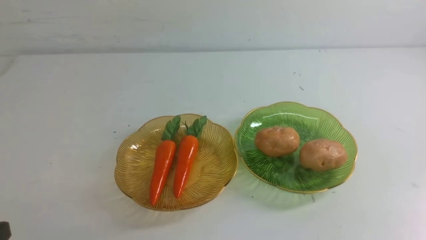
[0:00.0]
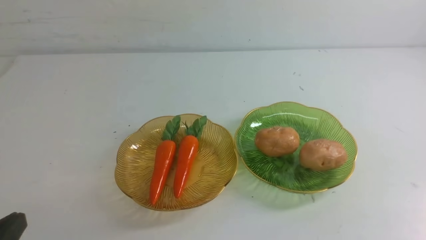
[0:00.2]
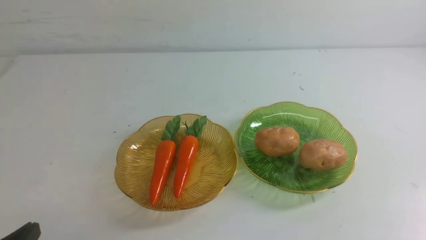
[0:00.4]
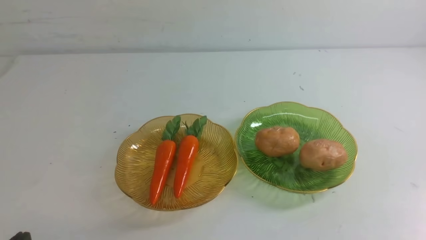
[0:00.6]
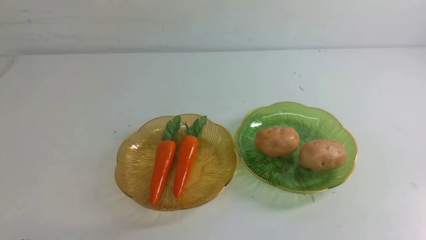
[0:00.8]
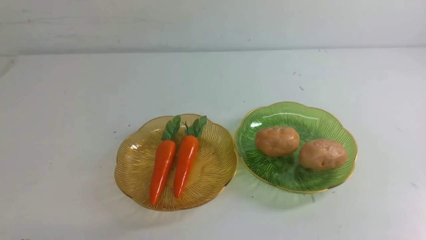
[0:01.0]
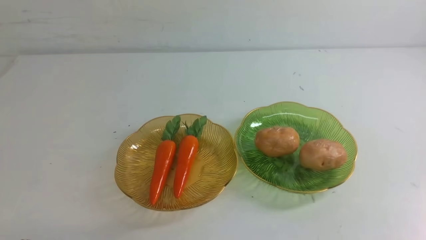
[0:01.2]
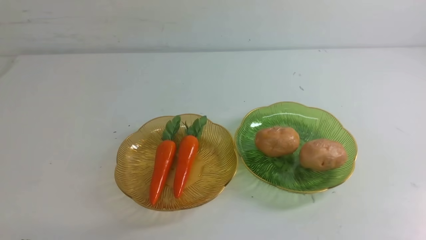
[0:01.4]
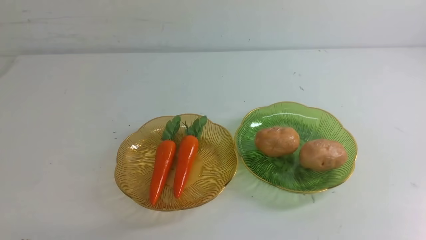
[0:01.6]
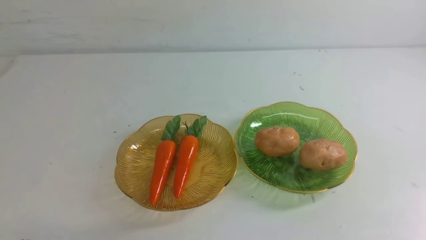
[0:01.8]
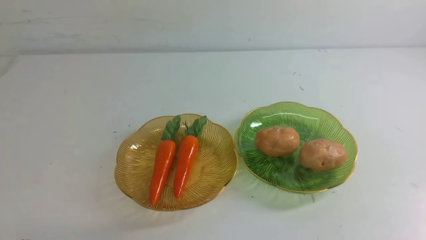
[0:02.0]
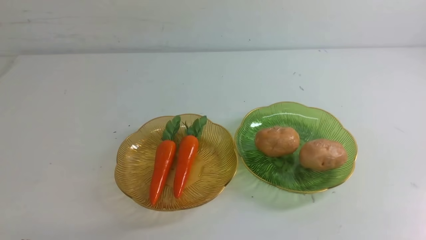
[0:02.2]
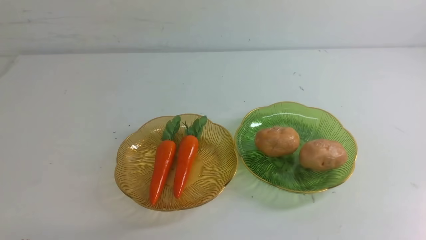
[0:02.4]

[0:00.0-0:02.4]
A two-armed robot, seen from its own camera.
0:01.2 to 0:02.4: Both grippers stay put.

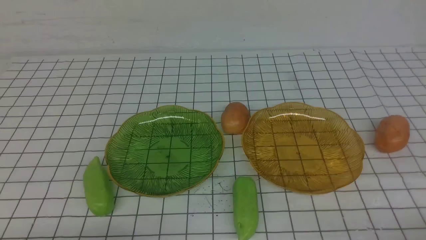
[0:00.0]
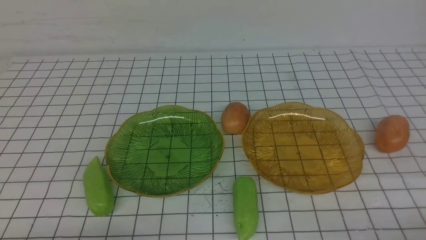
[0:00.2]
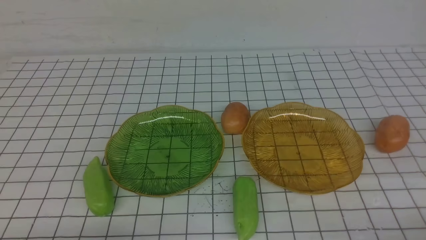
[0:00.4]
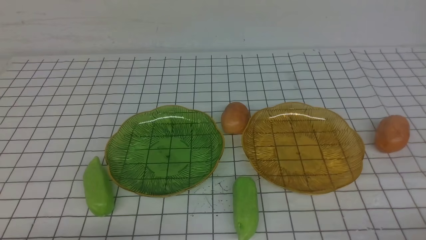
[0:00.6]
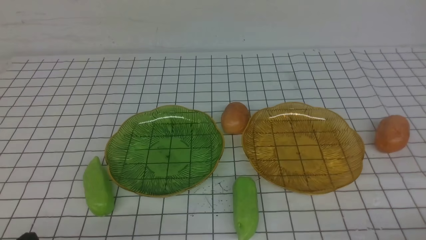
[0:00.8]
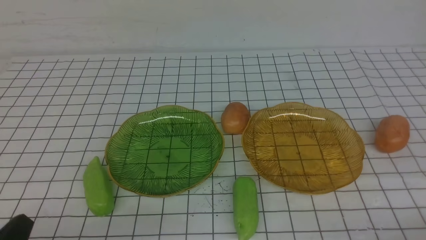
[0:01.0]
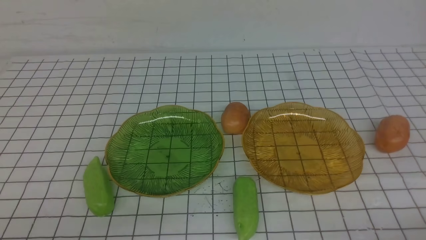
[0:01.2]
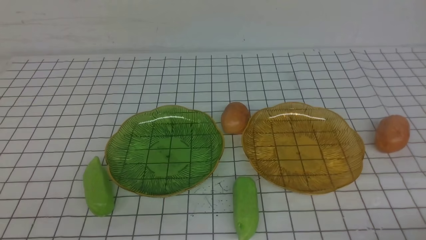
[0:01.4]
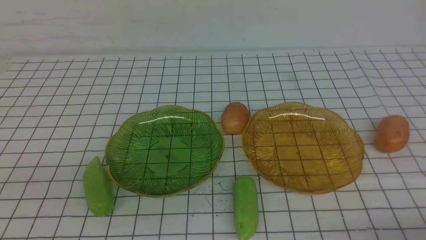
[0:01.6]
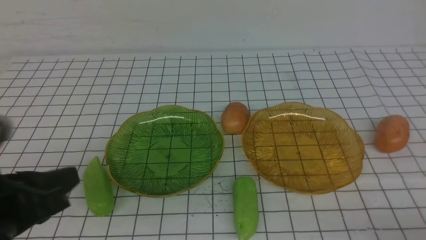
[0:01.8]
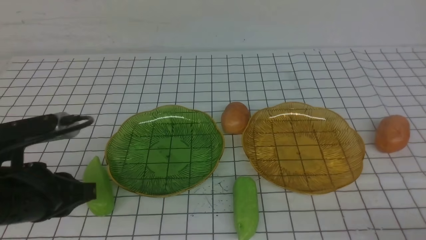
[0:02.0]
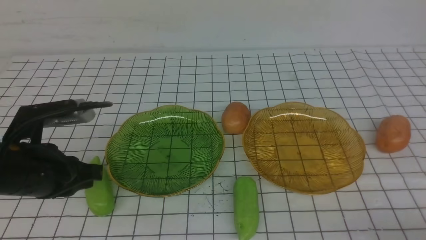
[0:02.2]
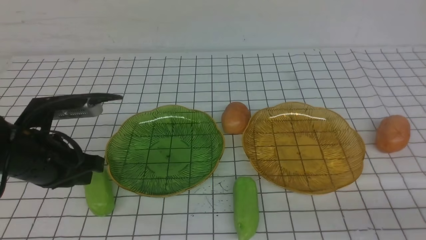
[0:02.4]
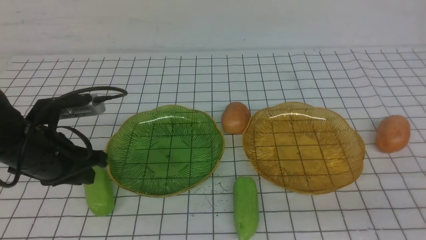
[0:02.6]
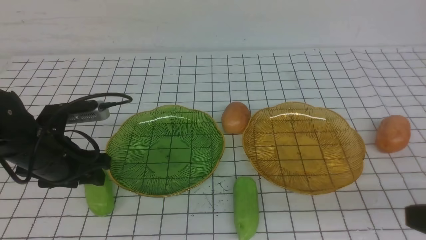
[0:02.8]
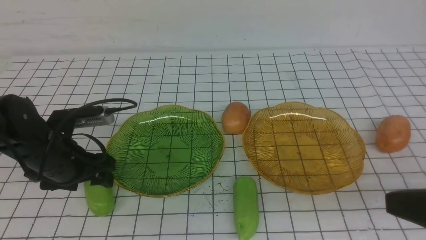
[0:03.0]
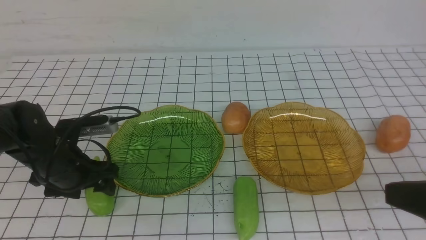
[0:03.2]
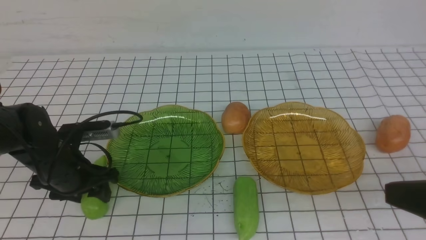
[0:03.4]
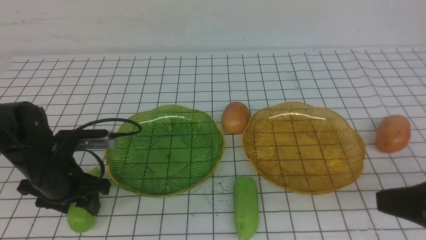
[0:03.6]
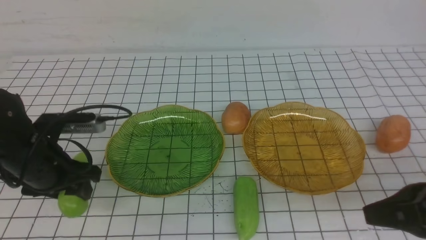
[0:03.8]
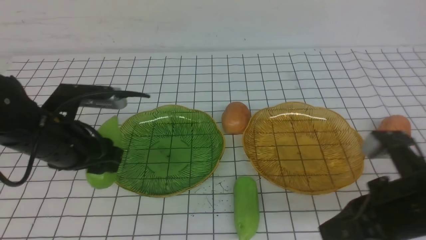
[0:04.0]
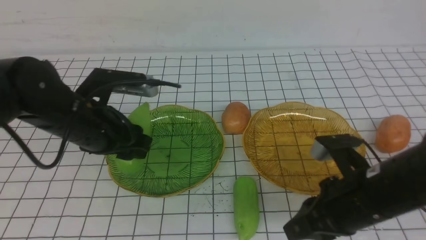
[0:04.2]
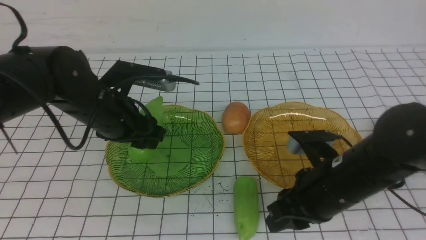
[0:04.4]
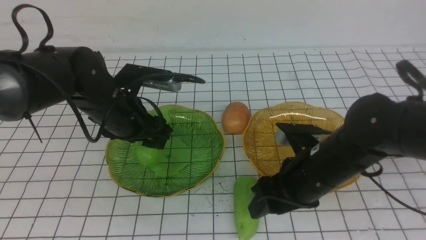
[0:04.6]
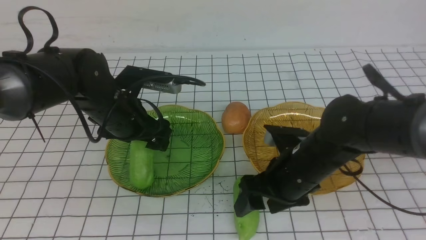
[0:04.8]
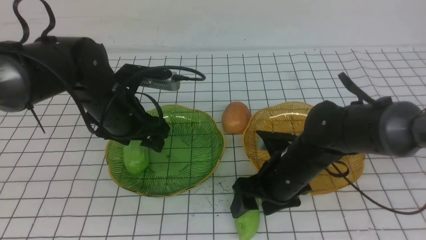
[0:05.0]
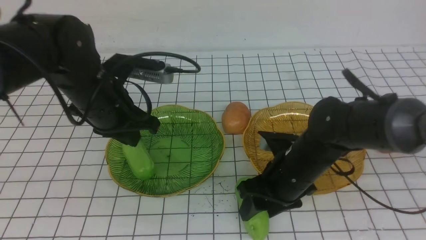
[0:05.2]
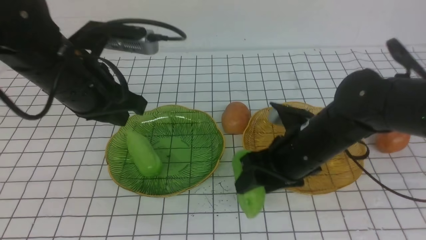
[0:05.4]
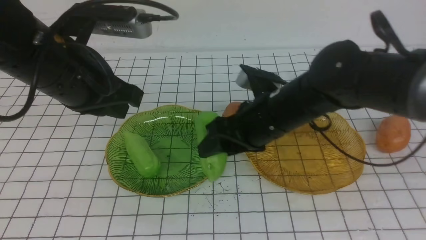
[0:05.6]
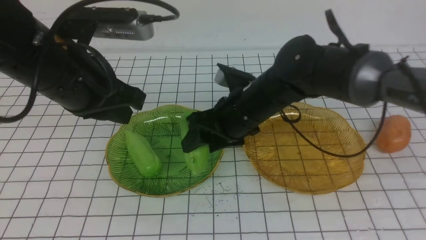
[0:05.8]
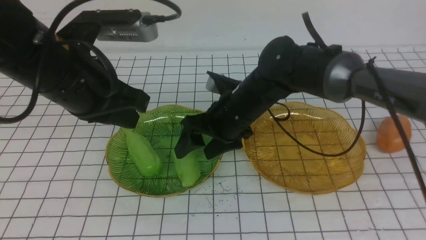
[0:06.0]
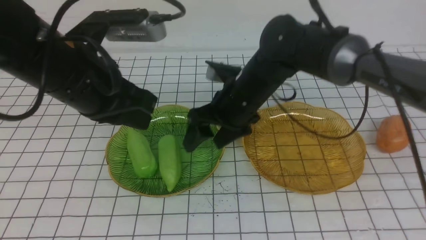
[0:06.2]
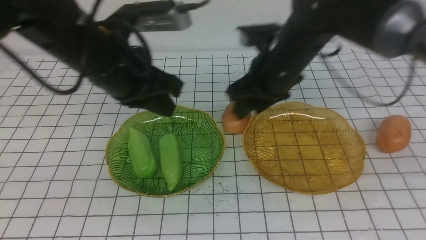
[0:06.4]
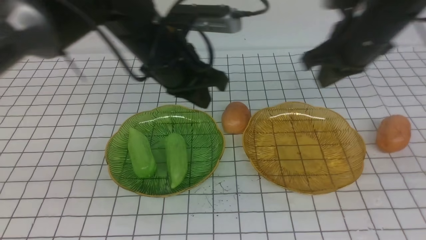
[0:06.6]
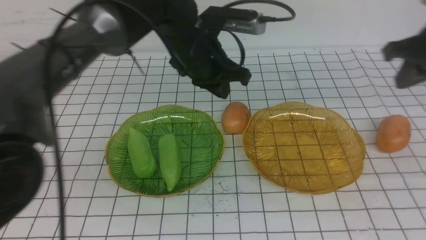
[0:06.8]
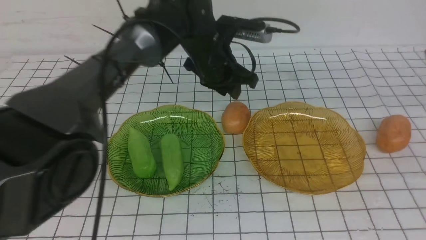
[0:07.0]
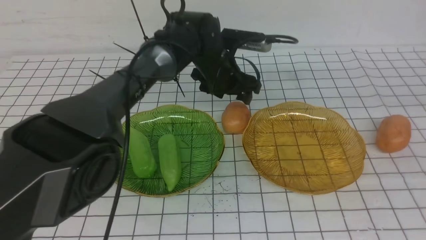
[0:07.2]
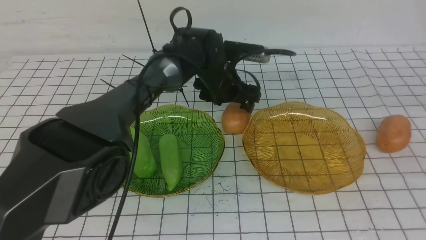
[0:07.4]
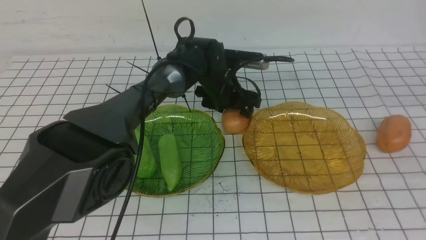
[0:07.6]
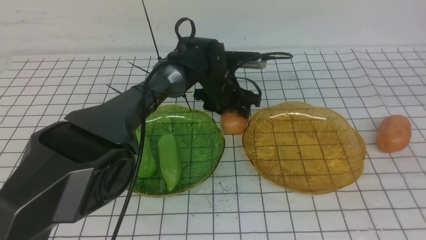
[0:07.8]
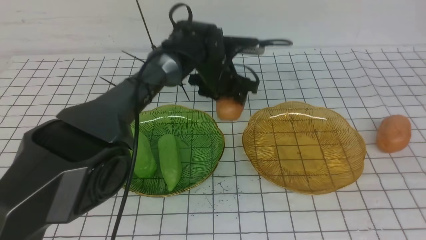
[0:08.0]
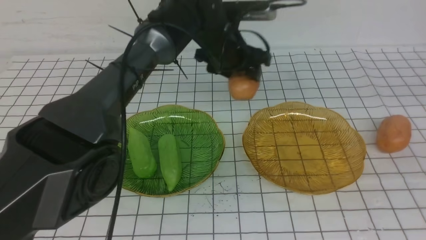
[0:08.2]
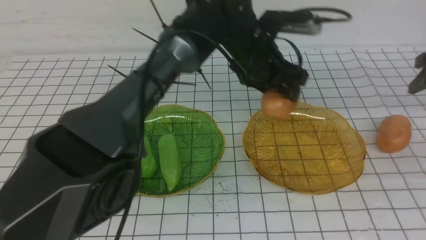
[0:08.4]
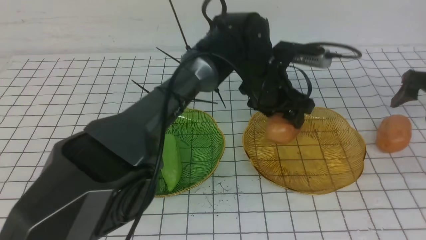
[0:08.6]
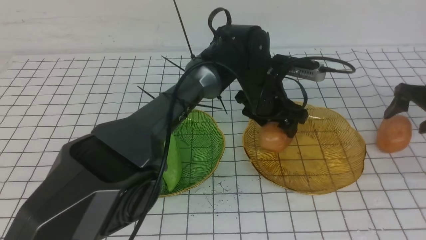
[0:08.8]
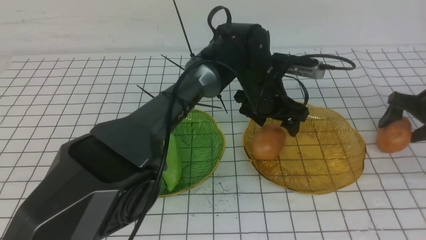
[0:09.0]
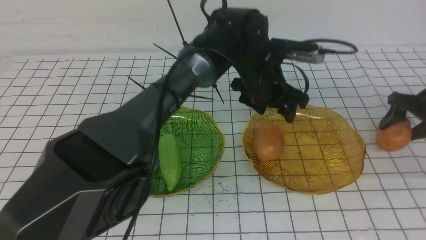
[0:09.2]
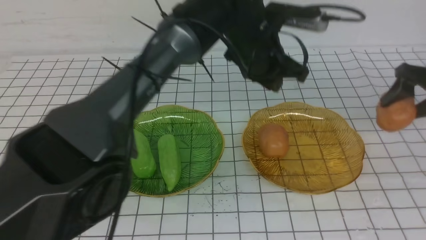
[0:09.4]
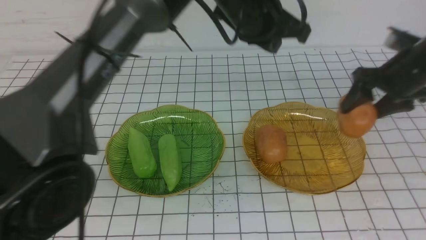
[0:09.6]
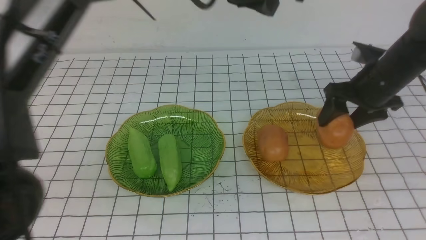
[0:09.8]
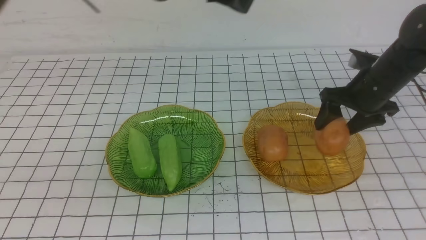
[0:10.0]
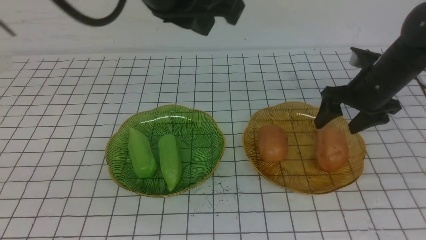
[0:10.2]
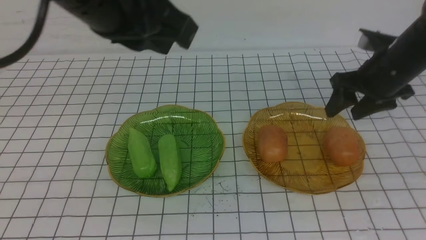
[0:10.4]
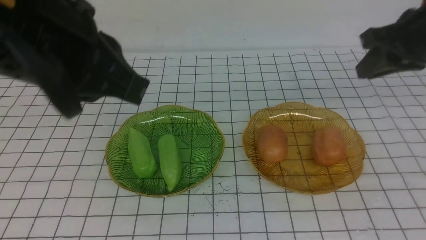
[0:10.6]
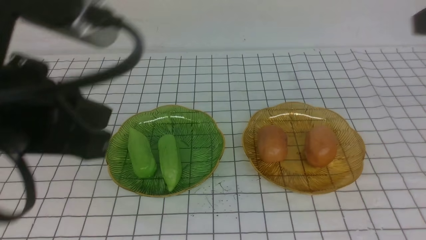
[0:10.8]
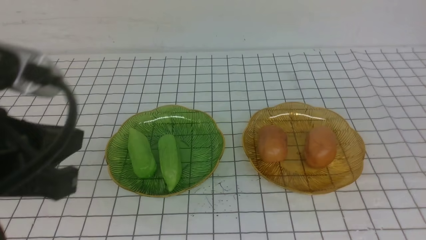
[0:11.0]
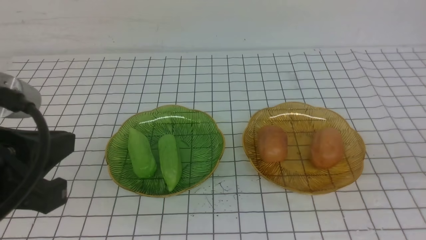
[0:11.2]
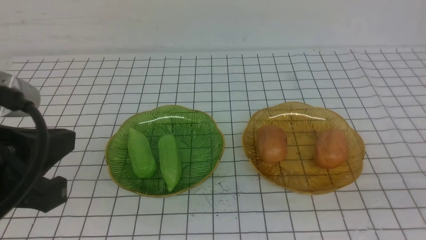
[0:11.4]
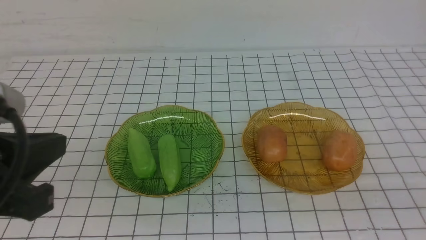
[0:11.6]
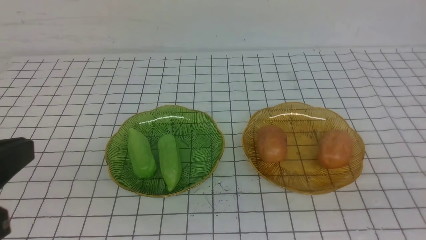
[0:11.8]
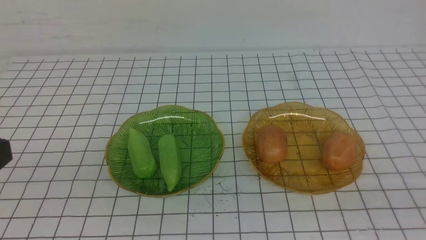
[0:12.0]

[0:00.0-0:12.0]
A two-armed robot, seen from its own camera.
Step, 0:00.0 to 0:05.0: use the left arm to grab a chayote and put it into the left plate.
Step, 0:05.2 to 0:06.0: Grab the chayote with your right arm and put it on the left plate.
Step, 0:06.2 to 0:09.0: Grab a potato with your left arm and put it on the right plate.
Step, 0:09.2 to 0:10.2: Grab a potato with your right arm and put it on the right plate.
0:01.6 to 0:03.0: The left gripper is displaced forward and downward by some 20 cm, and opens its fingers. The right gripper goes some 15 cm upward.
0:03.0 to 0:04.4: The right gripper heads forward, to the left and downward, covering roughly 20 cm, and opens its fingers; the left gripper is displaced to the right and upward by roughly 10 cm.
0:04.4 to 0:06.0: The right gripper goes approximately 15 cm forward and to the left, and opens up. The left gripper moves upward and backward, some 10 cm, and closes its fingers.
0:06.0 to 0:07.6: The right gripper goes some 35 cm to the right, and closes its fingers. The left gripper shifts some 30 cm forward, downward and to the right, and opens up.
0:07.6 to 0:09.0: The left gripper shifts approximately 10 cm to the right and backward. The right gripper travels downward and forward by about 20 cm, and opens its fingers.
0:09.0 to 0:10.4: The right gripper travels upward, to the left and backward by approximately 20 cm, and closes up. The left gripper is displaced upward, backward and to the left by about 35 cm, and closes.
0:10.4 to 0:12.0: The right gripper is displaced backward by roughly 35 cm, and closes its fingers, while the left gripper shifts about 20 cm backward, to the left and downward.

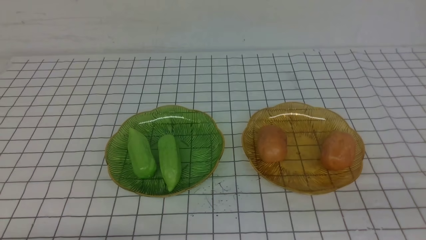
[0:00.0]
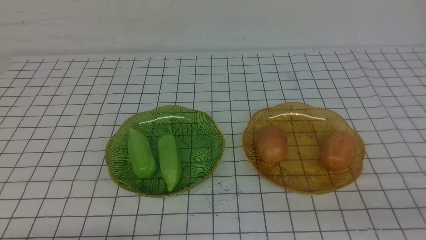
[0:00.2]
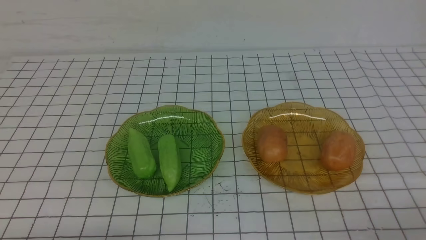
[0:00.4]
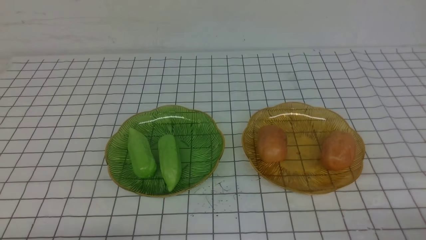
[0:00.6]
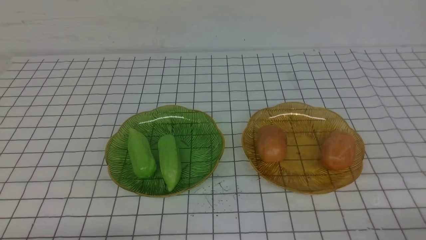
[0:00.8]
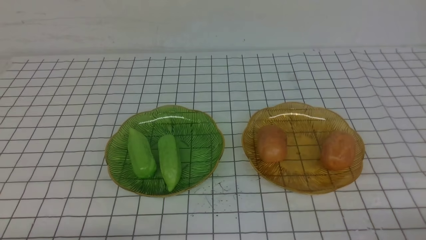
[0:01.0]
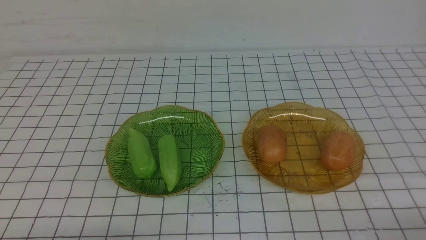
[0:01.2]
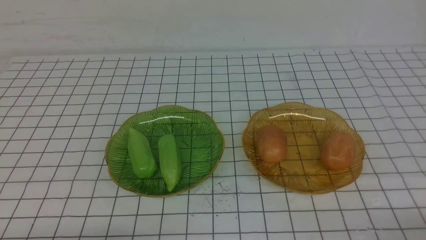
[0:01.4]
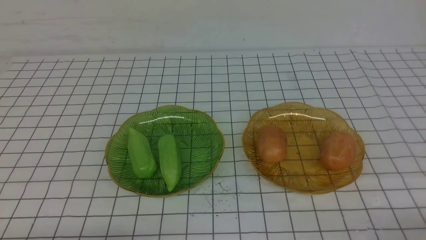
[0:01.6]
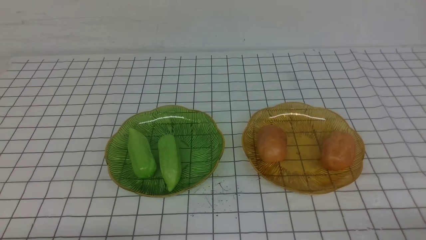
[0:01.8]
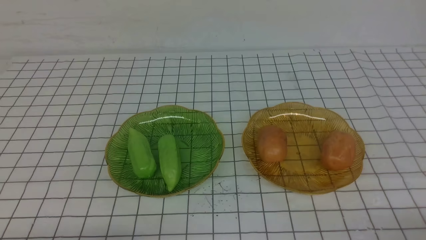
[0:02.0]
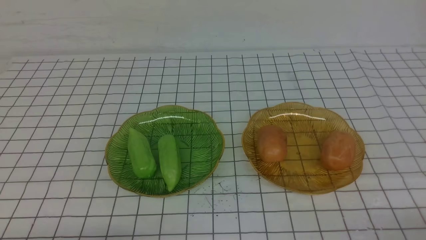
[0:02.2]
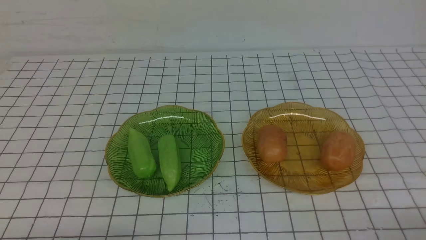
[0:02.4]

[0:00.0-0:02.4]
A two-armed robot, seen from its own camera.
0:01.2 to 0:02.4: The two grippers keep their place.
